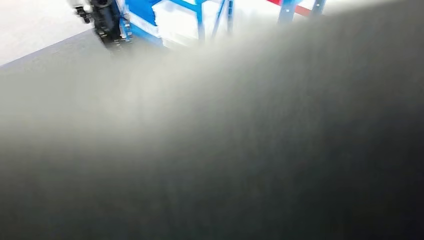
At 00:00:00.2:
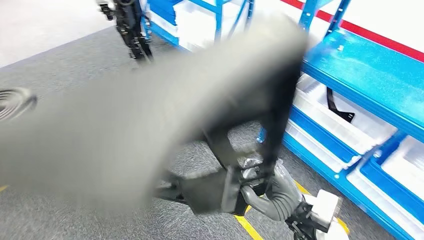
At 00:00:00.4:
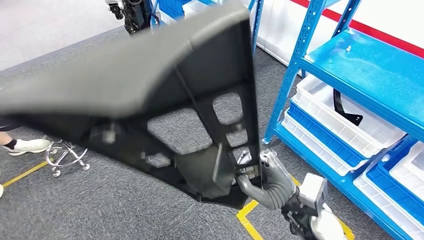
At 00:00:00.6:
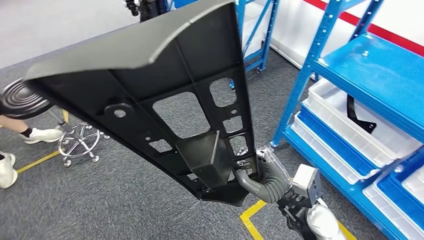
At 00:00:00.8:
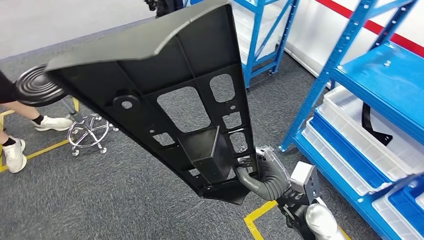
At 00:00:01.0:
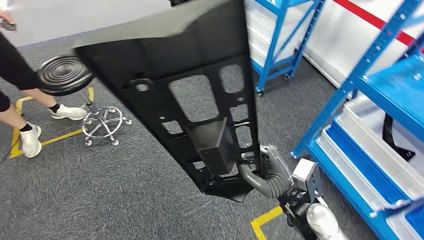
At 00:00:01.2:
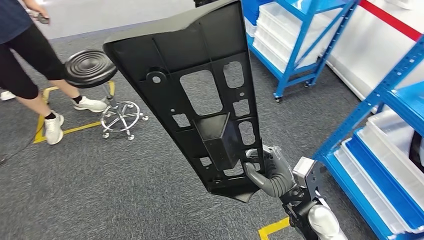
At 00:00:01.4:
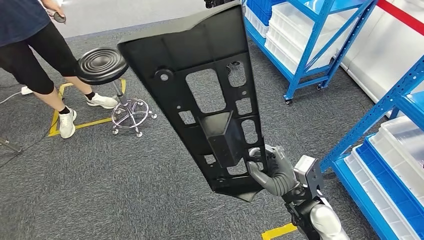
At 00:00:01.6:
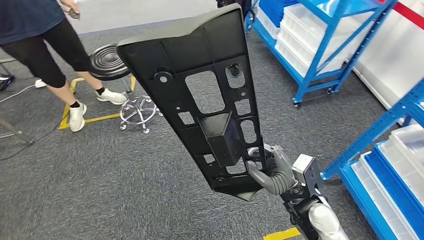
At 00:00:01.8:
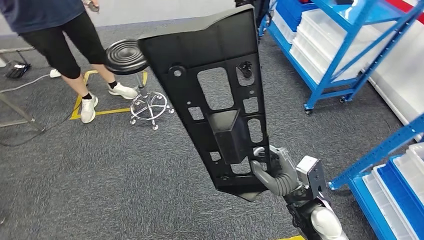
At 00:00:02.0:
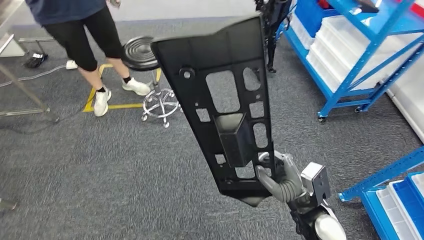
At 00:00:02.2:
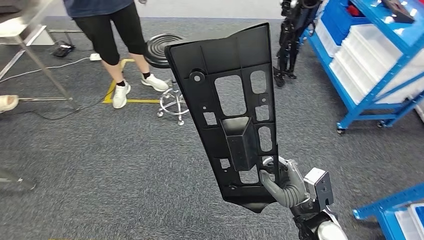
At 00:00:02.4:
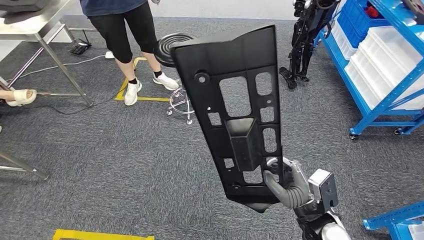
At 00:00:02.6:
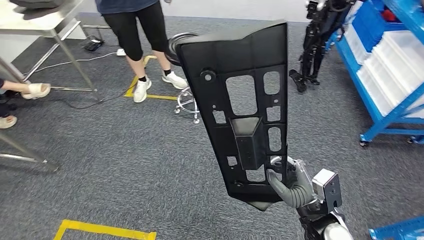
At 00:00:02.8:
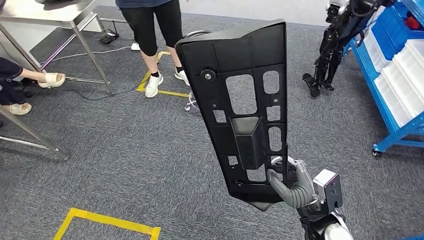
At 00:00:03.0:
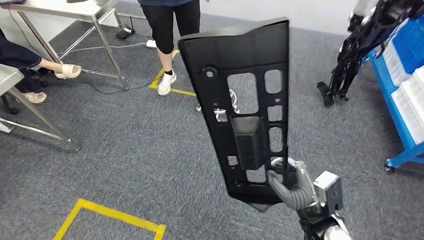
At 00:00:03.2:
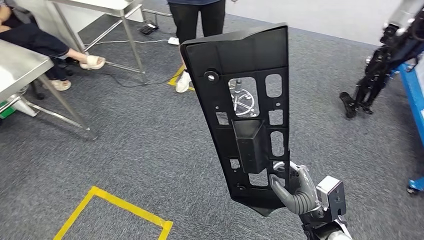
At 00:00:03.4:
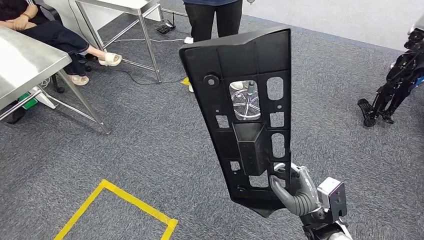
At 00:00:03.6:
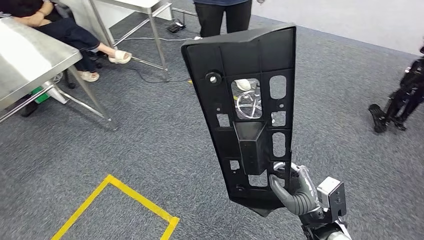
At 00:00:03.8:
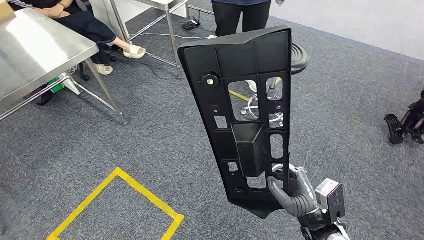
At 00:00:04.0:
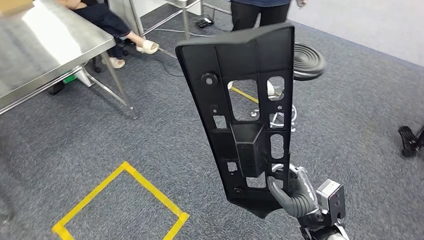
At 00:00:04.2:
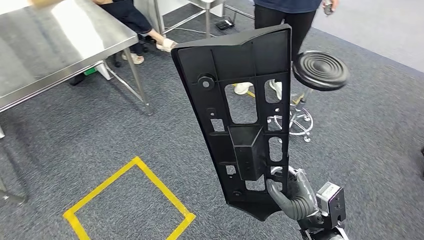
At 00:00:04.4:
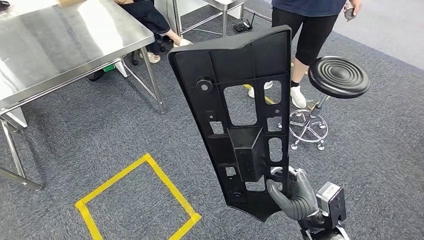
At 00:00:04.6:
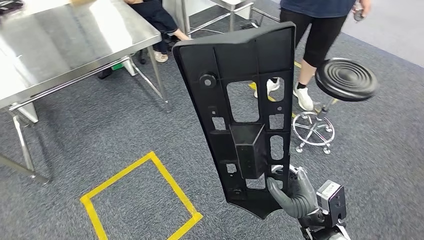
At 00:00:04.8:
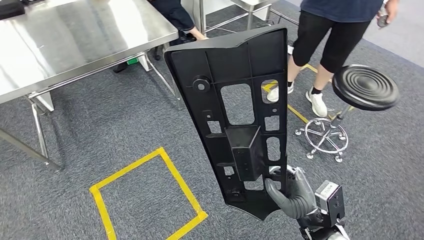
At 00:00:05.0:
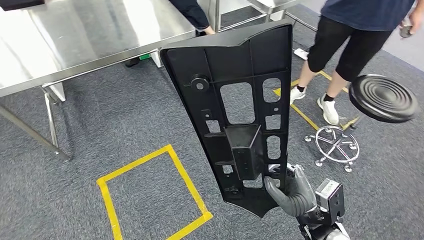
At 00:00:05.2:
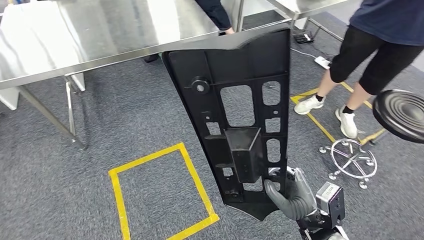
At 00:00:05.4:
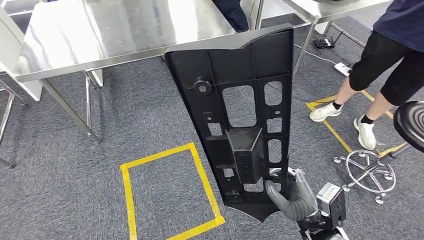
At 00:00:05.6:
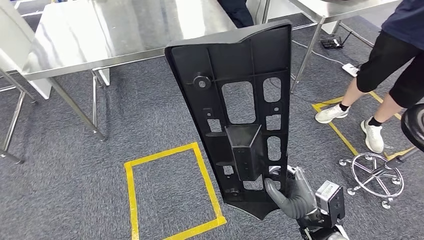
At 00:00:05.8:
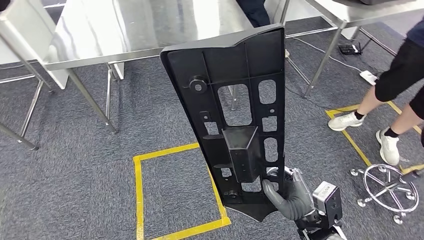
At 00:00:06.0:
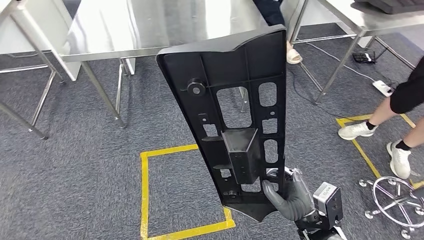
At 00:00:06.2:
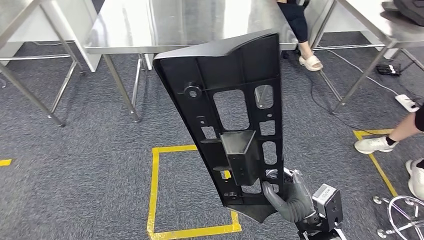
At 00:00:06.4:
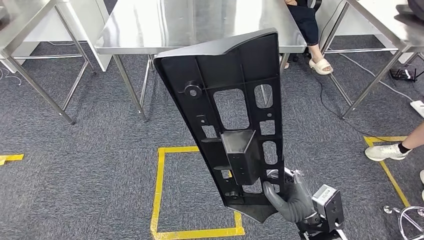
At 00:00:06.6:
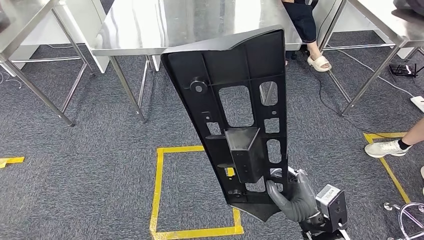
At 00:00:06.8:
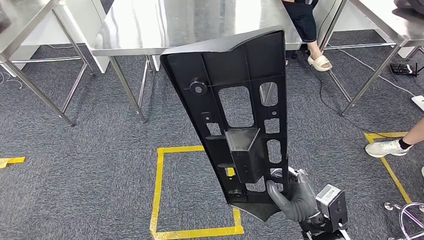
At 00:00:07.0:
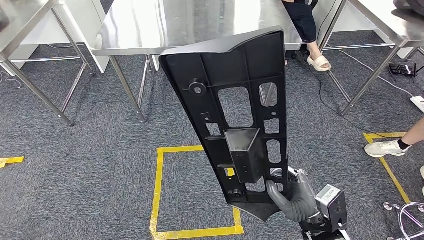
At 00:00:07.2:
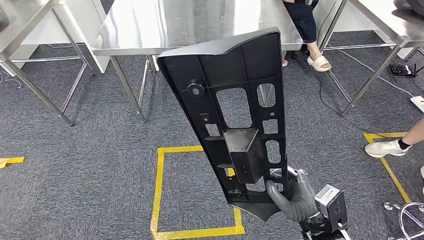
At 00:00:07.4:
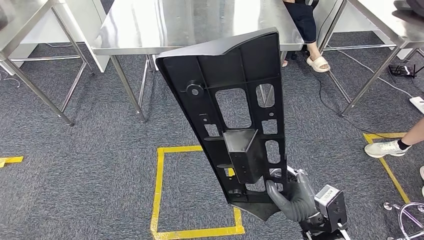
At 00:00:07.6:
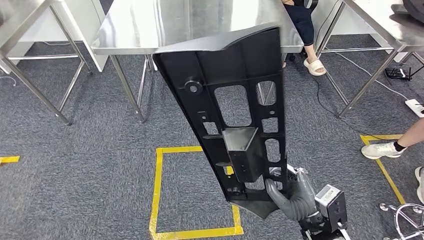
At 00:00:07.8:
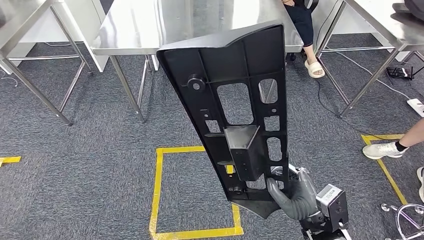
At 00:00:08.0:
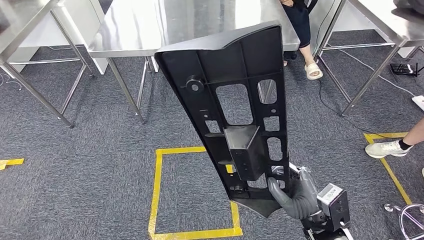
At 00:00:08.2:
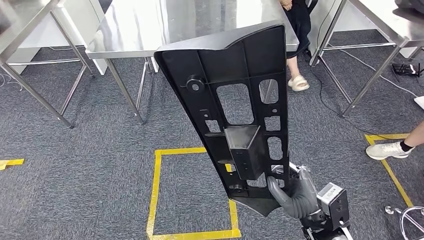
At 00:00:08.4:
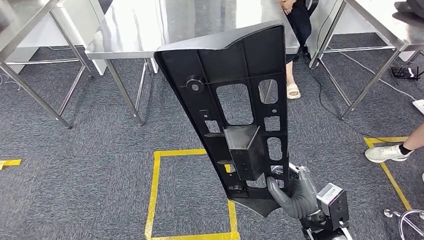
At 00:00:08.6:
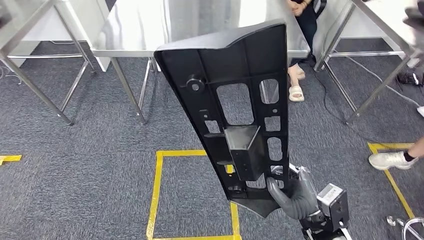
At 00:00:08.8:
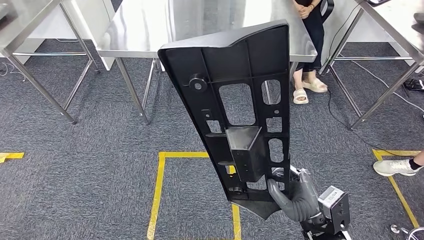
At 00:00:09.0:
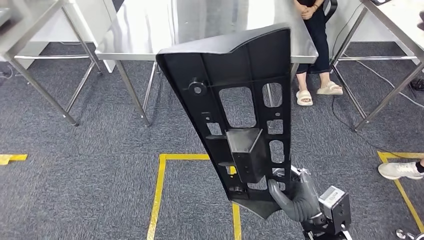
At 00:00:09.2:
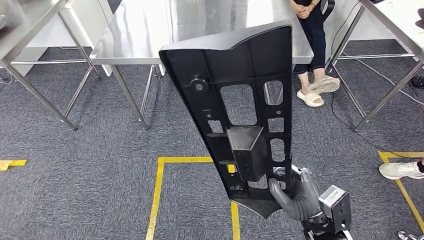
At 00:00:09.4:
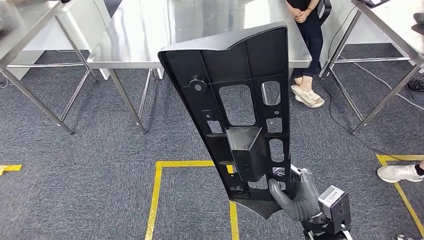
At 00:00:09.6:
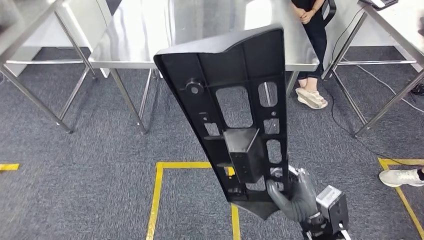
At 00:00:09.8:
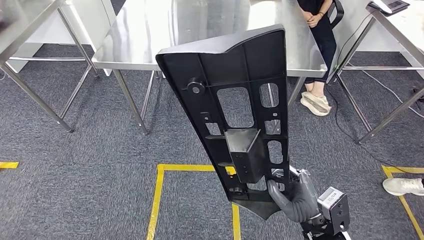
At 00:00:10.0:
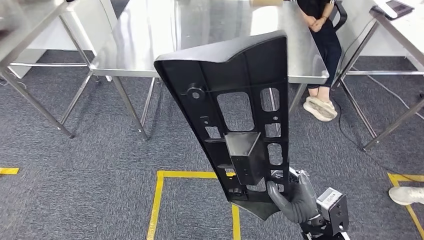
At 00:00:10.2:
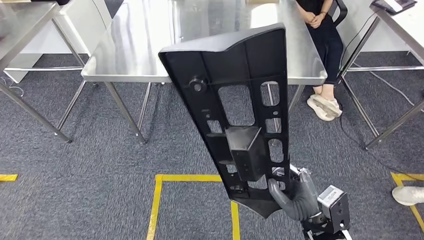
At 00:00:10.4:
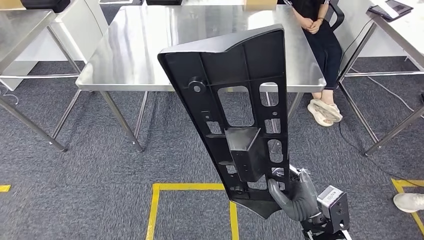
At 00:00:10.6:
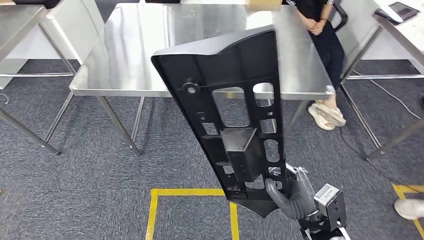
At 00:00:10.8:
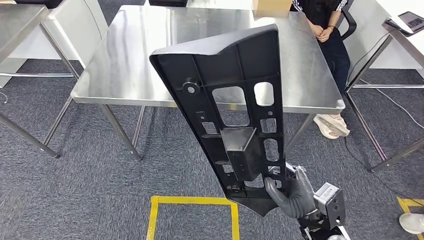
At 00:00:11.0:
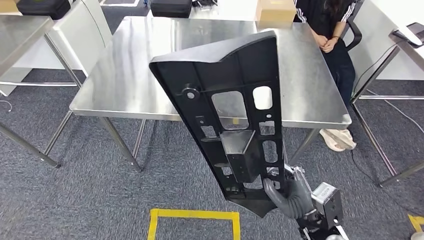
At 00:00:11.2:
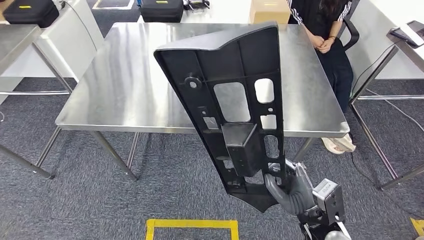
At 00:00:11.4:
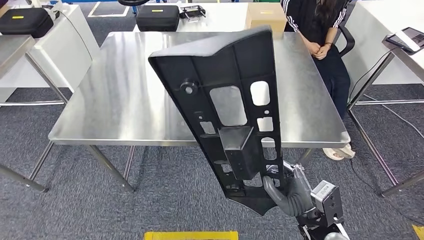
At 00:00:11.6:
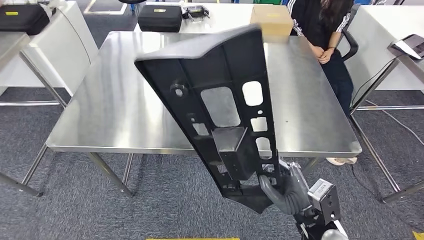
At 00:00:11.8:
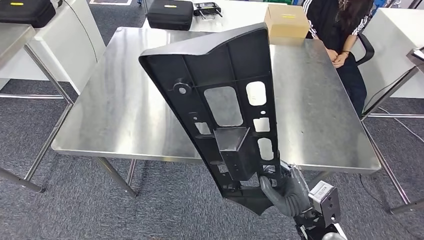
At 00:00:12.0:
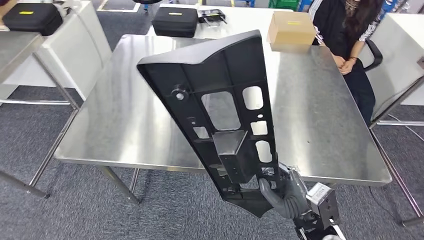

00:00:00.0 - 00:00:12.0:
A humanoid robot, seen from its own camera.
Step, 00:00:00.0 - 00:00:11.0: Move the large material to the workbench.

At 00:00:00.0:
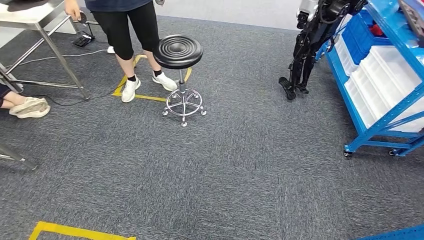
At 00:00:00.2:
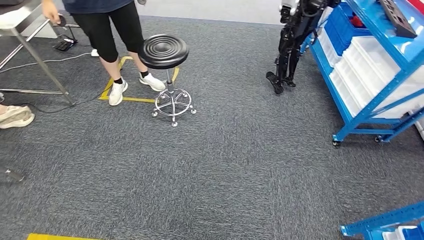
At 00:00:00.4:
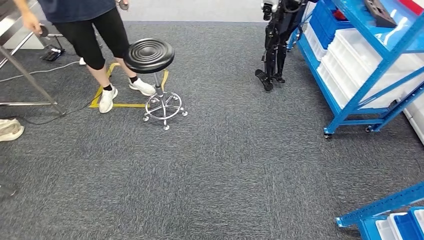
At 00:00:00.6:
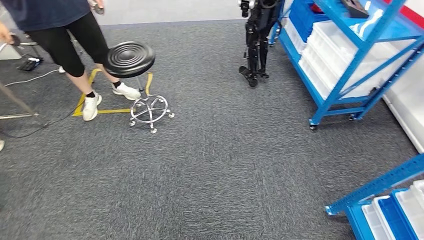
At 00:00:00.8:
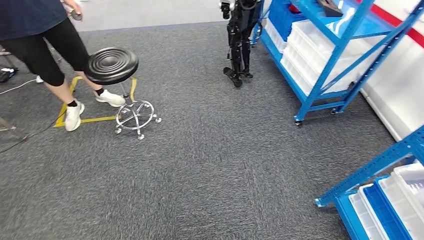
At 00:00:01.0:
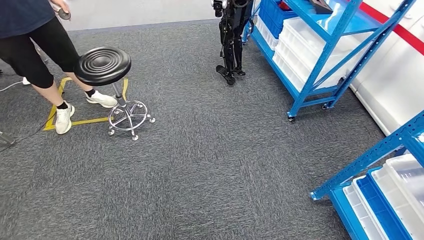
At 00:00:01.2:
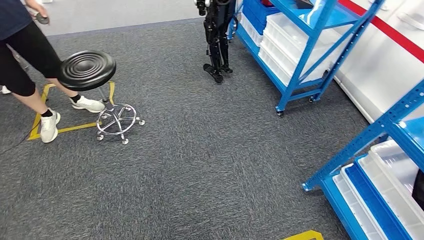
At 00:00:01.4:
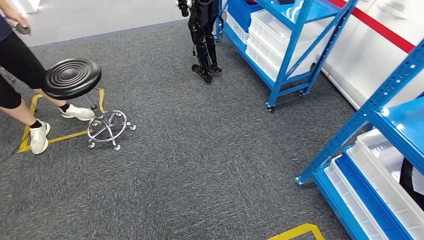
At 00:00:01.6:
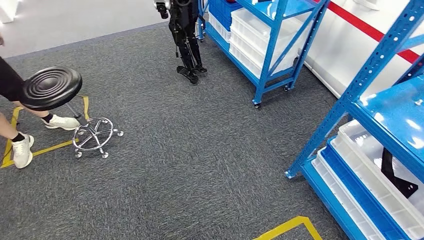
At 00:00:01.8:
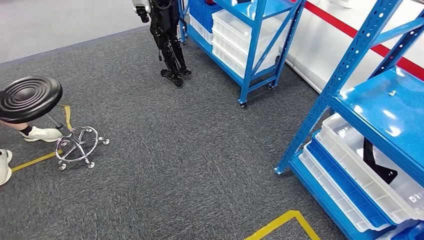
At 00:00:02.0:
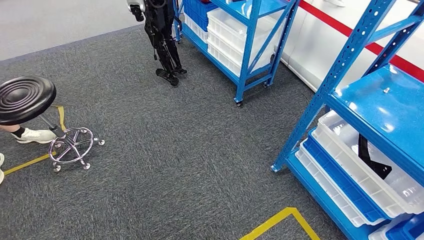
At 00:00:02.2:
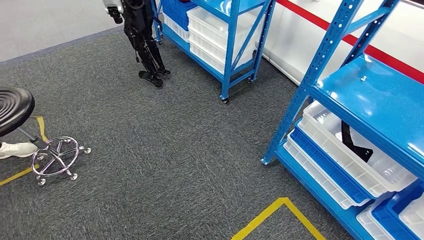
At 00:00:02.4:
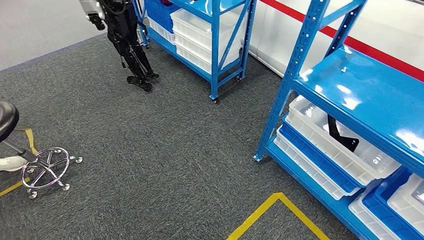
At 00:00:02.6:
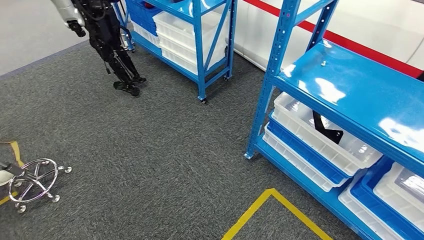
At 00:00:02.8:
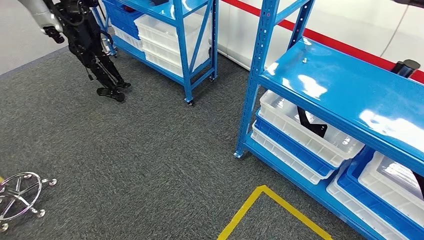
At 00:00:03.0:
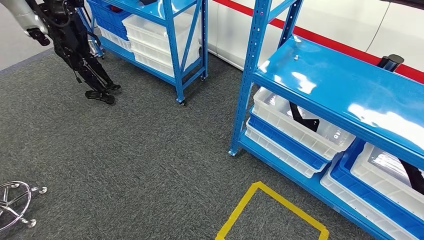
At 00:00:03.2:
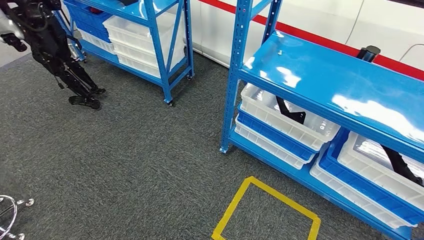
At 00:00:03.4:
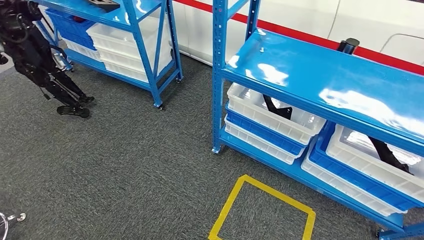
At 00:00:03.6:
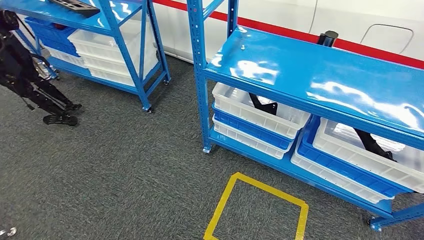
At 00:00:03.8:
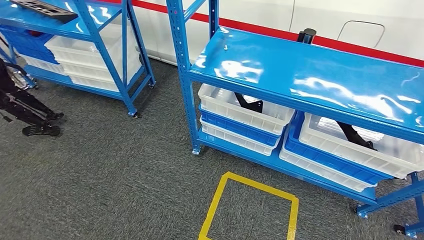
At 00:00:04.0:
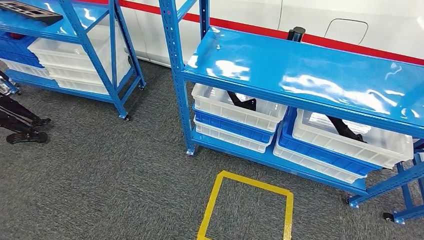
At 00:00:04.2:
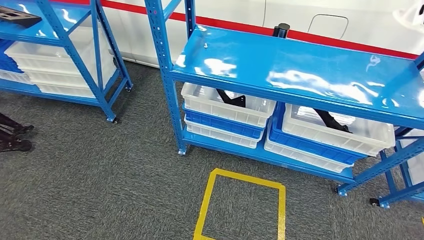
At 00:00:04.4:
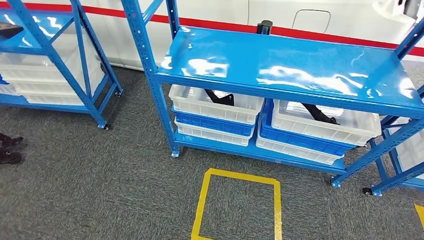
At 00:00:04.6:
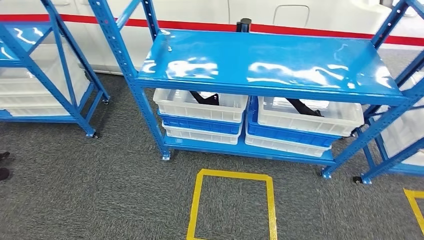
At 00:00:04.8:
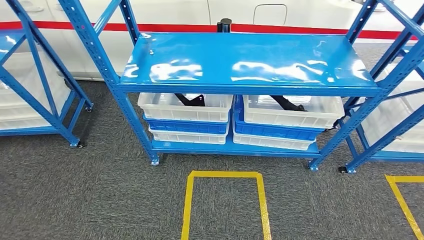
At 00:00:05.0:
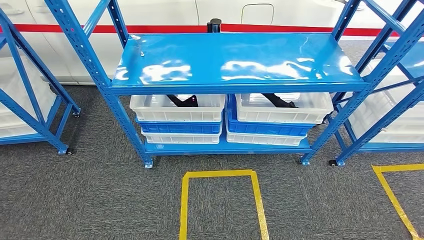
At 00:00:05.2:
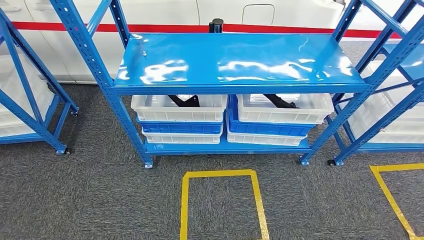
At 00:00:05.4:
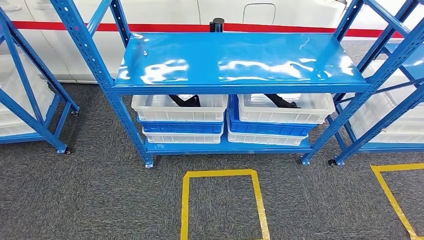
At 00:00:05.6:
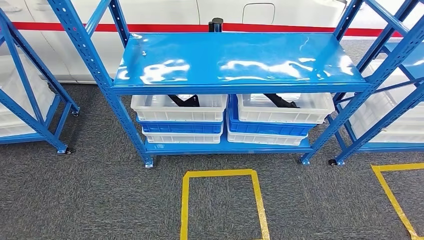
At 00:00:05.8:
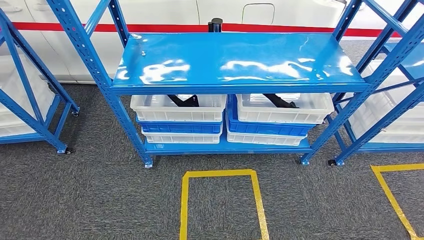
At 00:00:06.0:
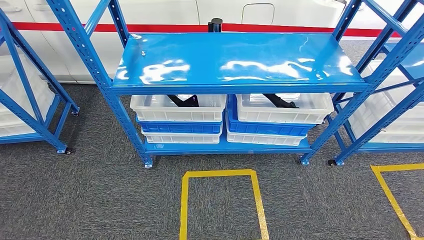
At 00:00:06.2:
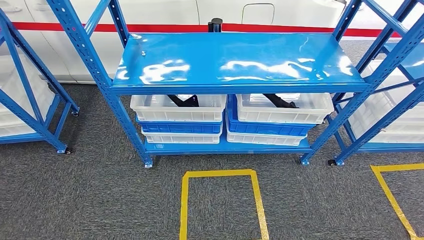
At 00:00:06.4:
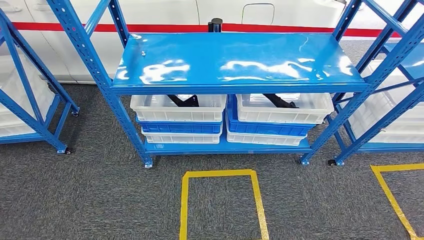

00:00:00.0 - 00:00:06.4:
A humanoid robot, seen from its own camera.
Step, 00:00:00.0 - 00:00:06.4: Move to the initial position of the shelf.
